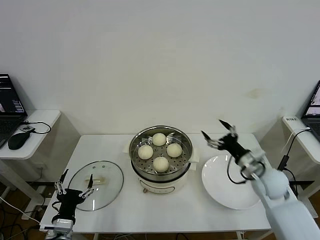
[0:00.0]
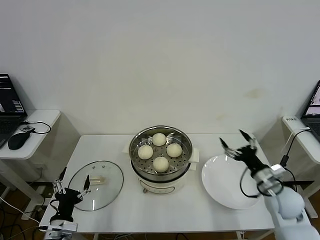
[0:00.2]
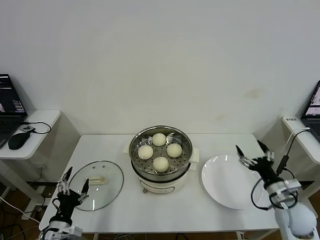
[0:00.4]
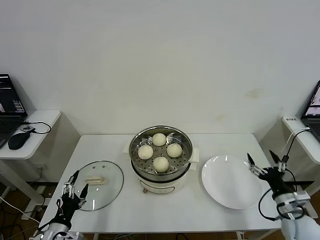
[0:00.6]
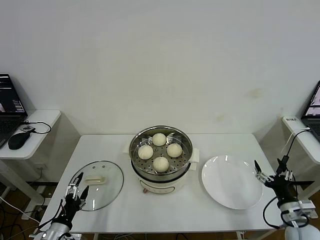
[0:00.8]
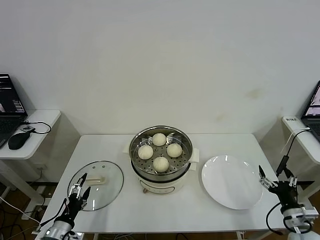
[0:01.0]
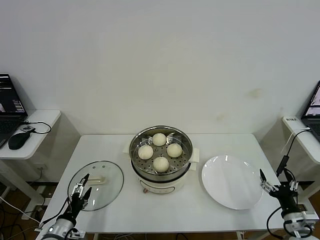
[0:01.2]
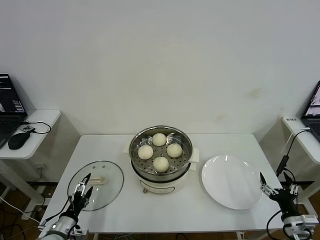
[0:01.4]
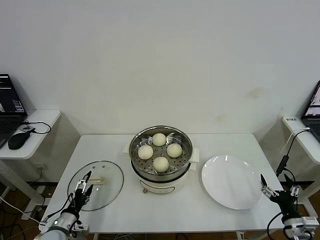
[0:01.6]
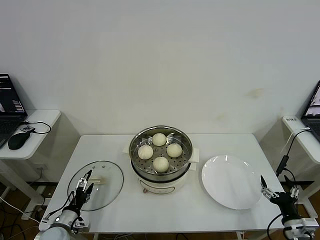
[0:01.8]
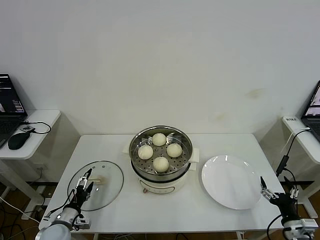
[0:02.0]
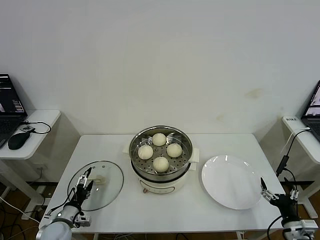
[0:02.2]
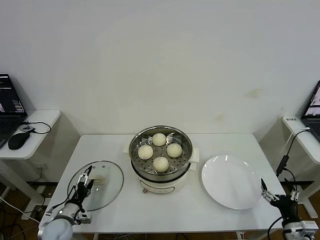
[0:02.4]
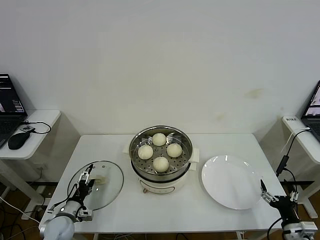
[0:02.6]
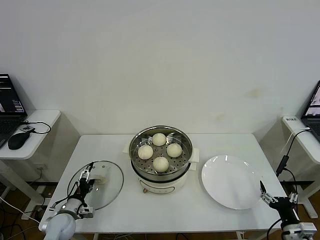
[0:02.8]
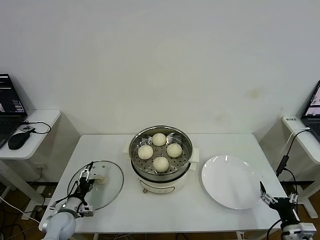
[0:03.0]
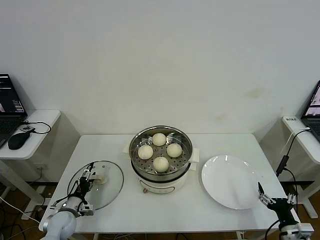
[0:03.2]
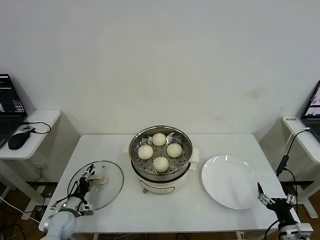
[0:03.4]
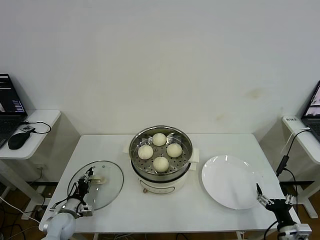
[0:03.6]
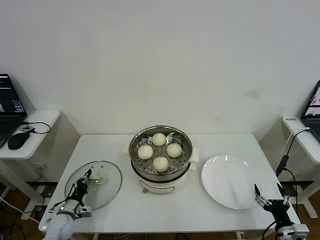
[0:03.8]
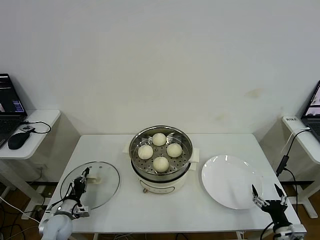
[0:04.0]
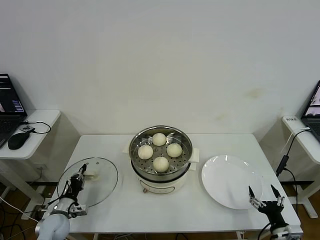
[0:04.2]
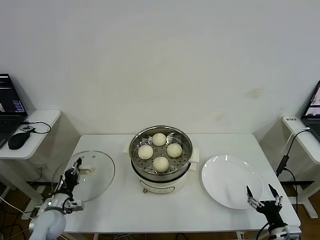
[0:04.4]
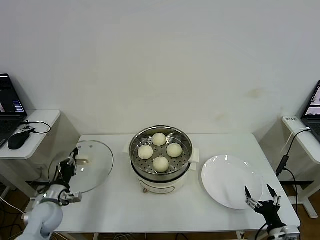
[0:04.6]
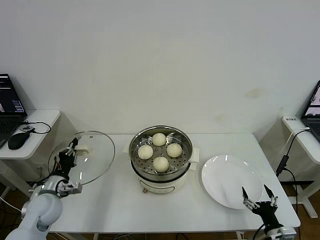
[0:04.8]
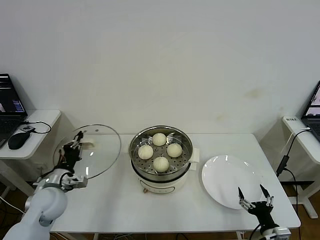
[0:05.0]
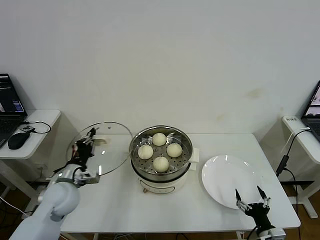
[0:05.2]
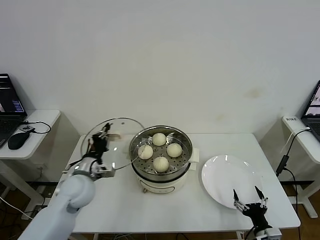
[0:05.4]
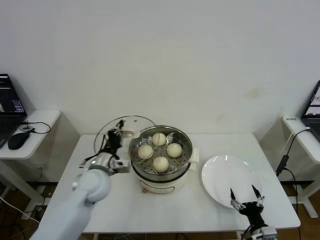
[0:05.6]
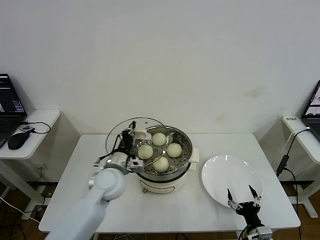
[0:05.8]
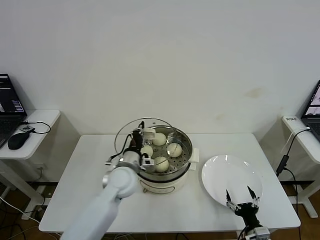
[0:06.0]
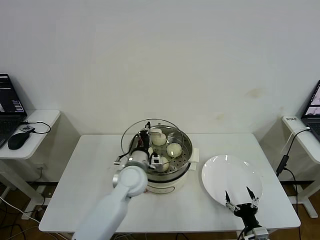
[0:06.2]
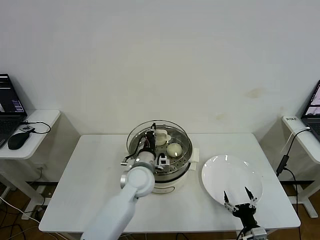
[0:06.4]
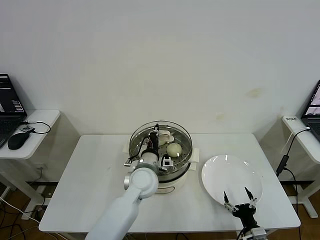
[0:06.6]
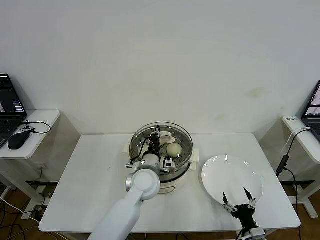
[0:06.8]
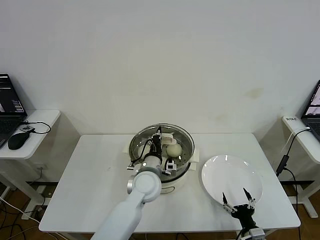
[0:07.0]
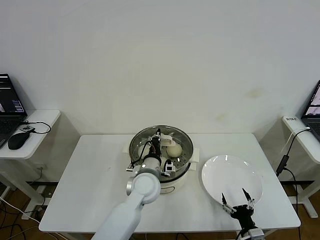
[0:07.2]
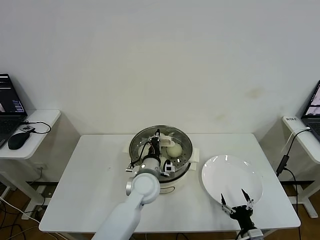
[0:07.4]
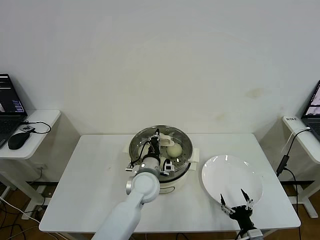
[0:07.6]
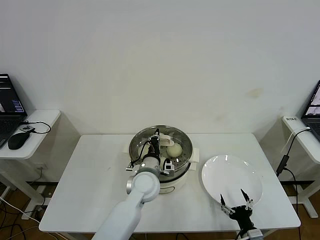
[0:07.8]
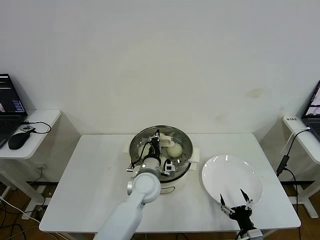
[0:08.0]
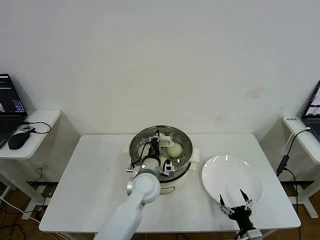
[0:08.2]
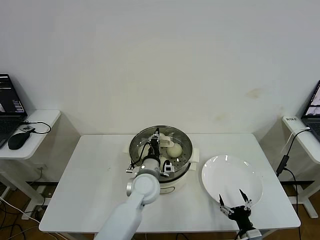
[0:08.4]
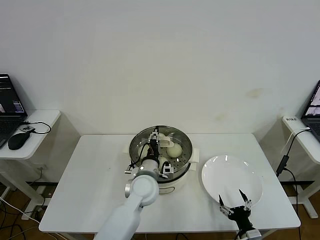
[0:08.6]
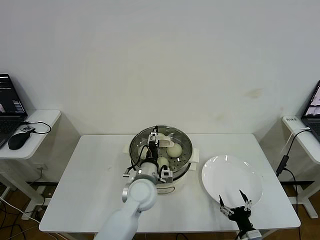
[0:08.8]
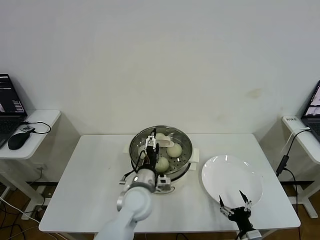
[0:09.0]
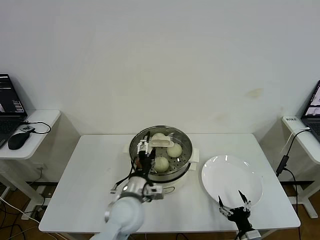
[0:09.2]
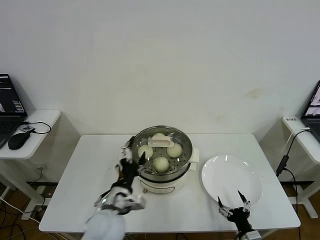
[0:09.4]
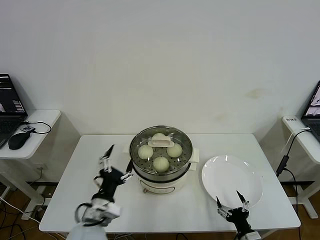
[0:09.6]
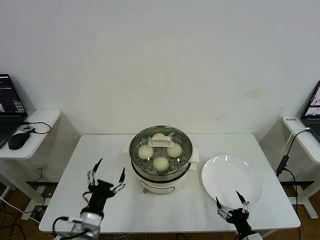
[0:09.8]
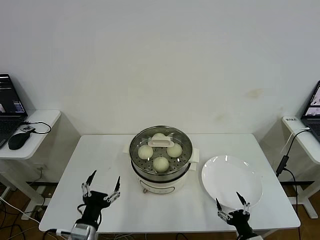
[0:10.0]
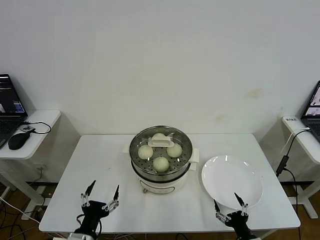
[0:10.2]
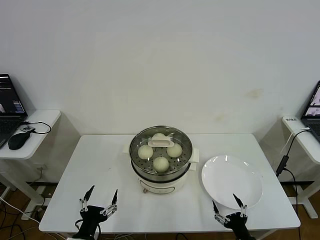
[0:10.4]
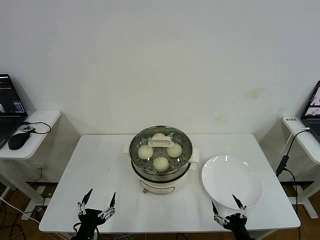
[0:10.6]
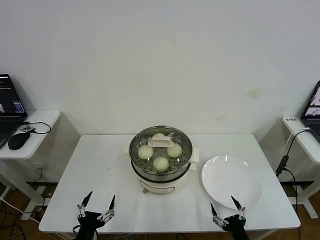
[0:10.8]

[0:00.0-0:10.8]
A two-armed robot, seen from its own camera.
Step, 0:00.0 to 0:03.8: Grasp the pot lid with left gripper.
Step, 0:04.0 to 0:08.6: Place the pot lid on the steamer with left gripper.
0:00.0 to 0:01.6: The right gripper travels backward, downward and to the right by some 25 cm. The left gripper is displaced downward and to the left by some 10 cm.
0:01.6 to 0:03.0: The left gripper shifts approximately 5 cm forward.
0:03.0 to 0:04.6: The left gripper shifts approximately 5 cm upward, and closes up.
0:04.6 to 0:06.2: The right gripper shifts some 5 cm to the left. Meanwhile the left gripper heads to the right, covering roughly 30 cm.
0:06.2 to 0:07.8: The left gripper shifts by some 5 cm.
0:07.8 to 0:09.2: The left gripper goes some 10 cm backward, and opens its fingers.
0:09.2 to 0:10.8: The right gripper changes place by some 5 cm. Meanwhile the left gripper heads backward, to the left and downward, covering approximately 25 cm.
